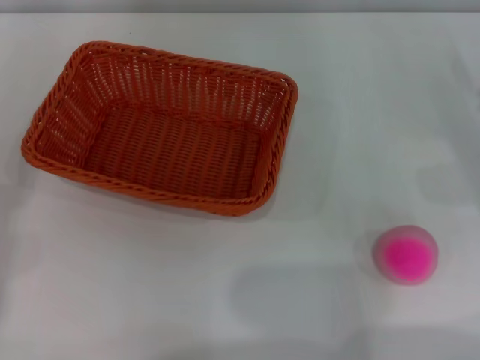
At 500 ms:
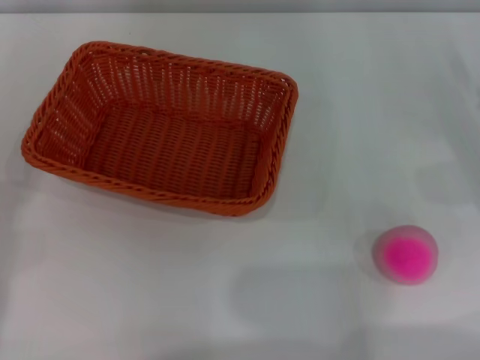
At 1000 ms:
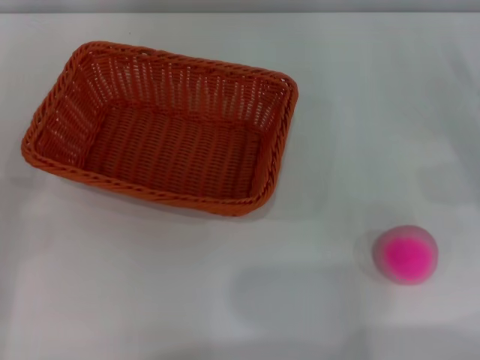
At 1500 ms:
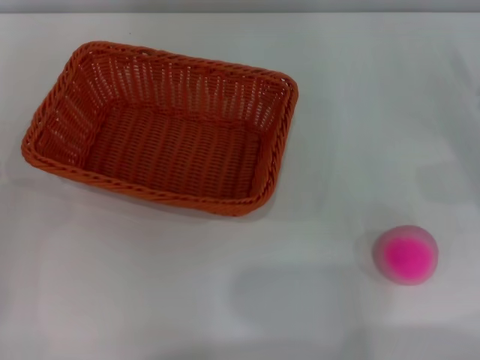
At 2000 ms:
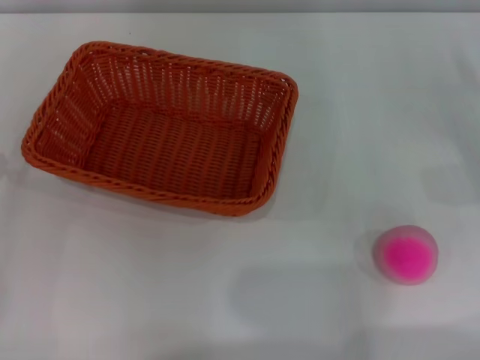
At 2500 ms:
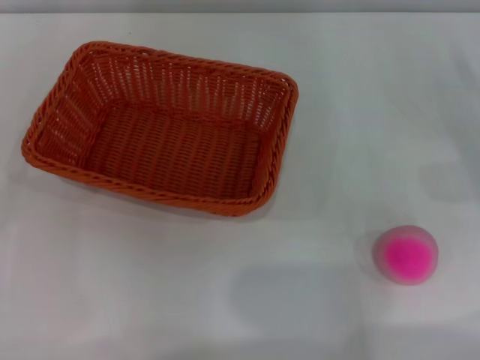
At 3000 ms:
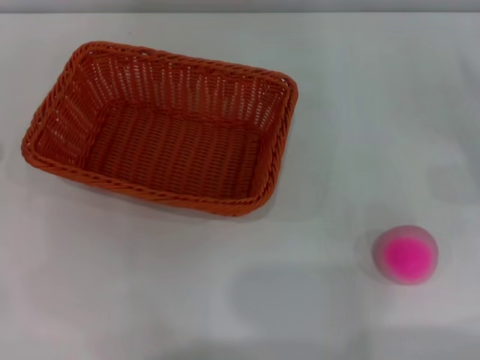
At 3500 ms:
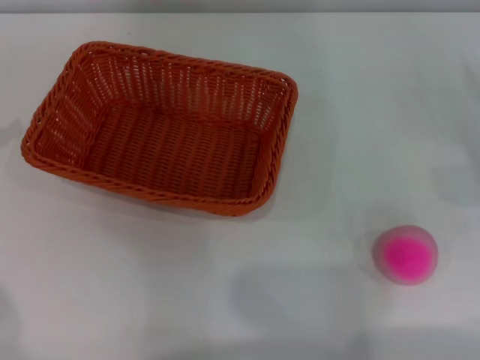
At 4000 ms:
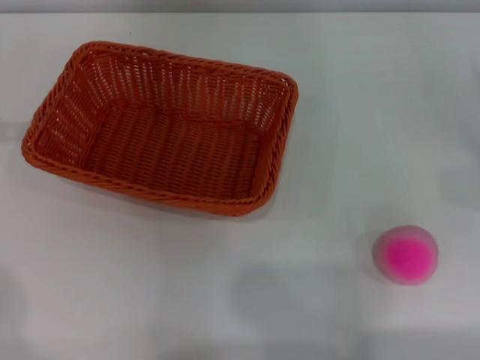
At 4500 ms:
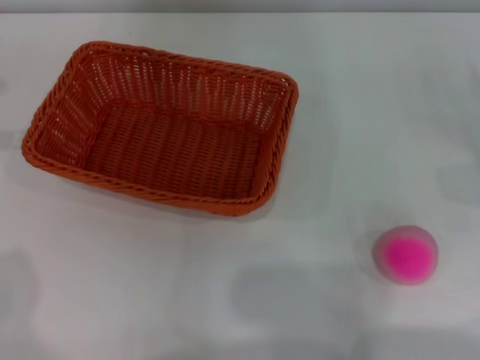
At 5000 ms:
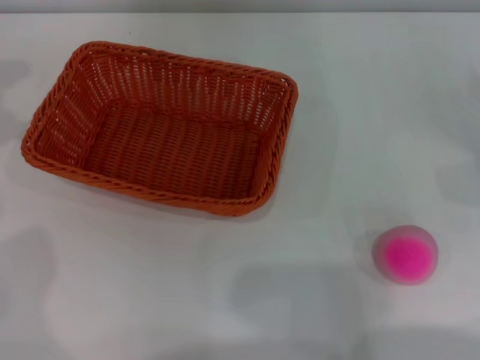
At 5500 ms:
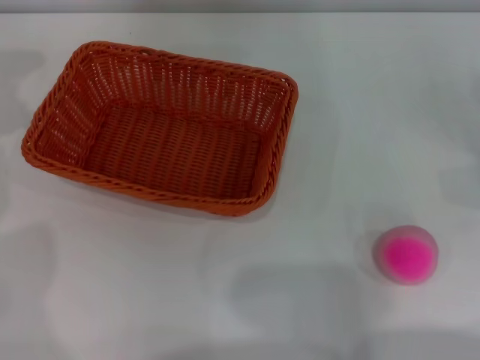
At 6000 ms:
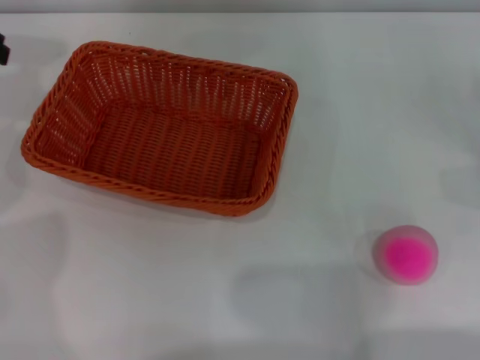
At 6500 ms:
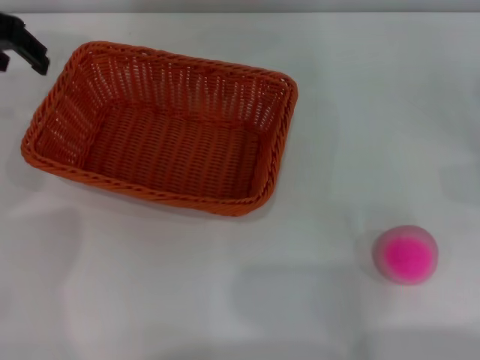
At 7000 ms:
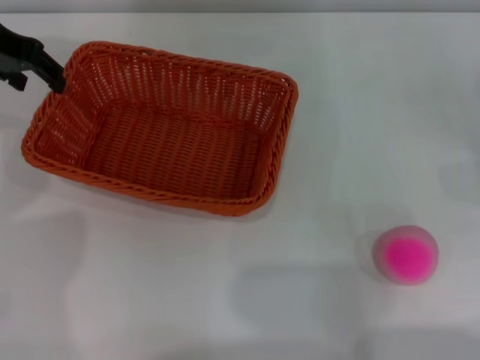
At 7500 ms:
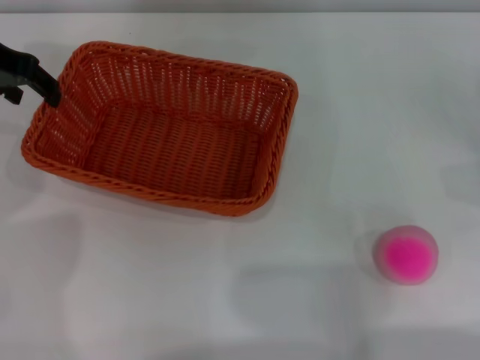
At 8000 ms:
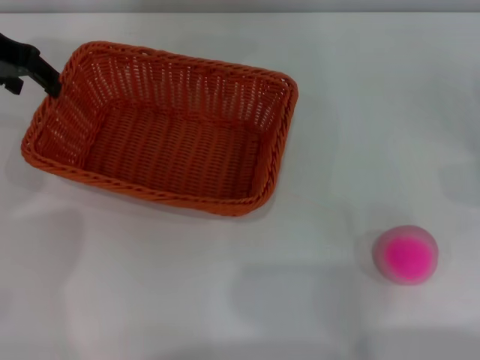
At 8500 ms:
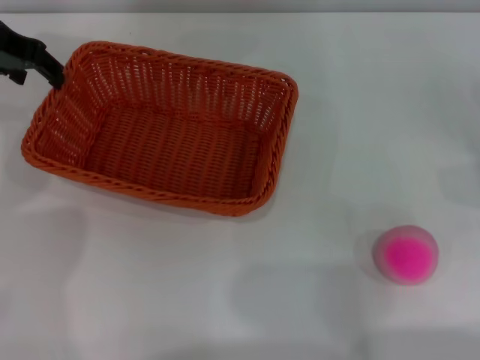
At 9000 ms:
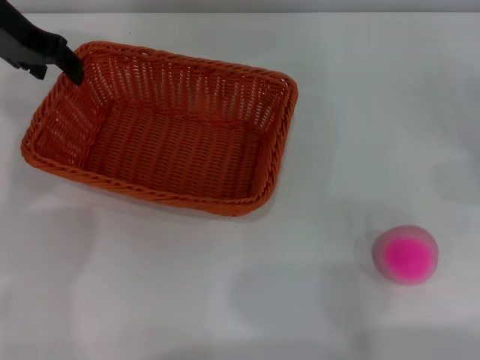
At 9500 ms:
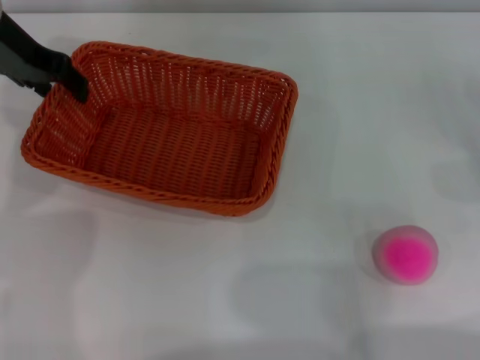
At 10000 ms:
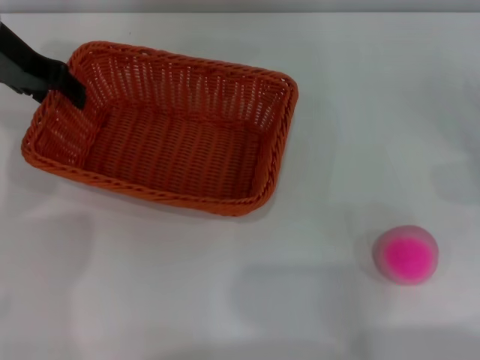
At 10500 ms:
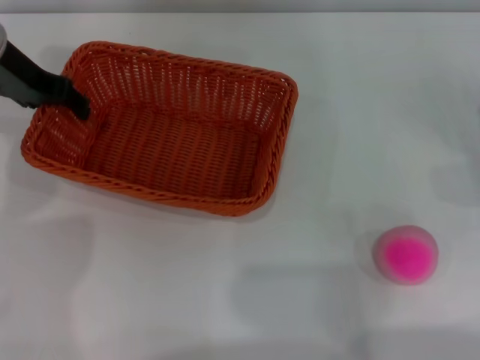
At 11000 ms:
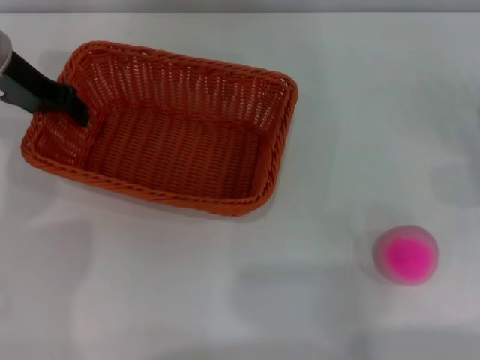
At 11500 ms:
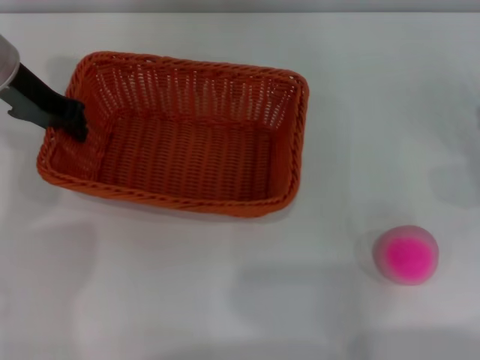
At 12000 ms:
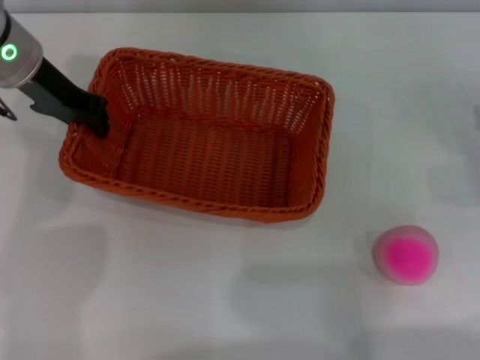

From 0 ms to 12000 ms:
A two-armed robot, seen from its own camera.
From 6000 ms to 8000 ms: The left gripper moves downward, about 5 cm.
From 8000 ms to 10000 ms: The grippers stay close to where they were, moving slightly.
From 10000 ms to 12000 ms: The left gripper closes.

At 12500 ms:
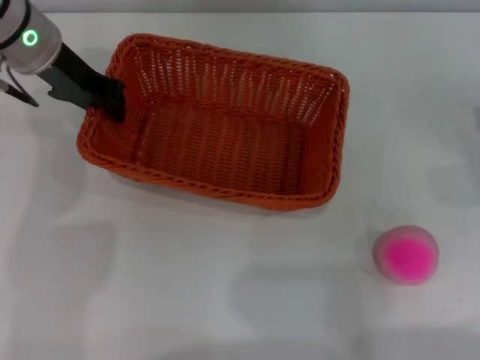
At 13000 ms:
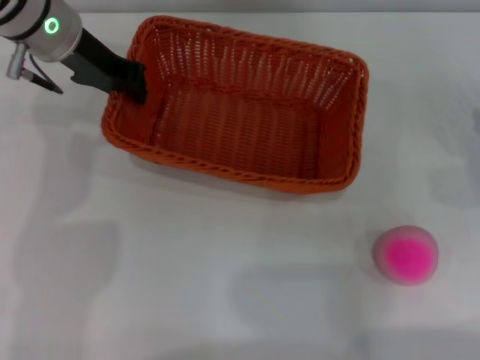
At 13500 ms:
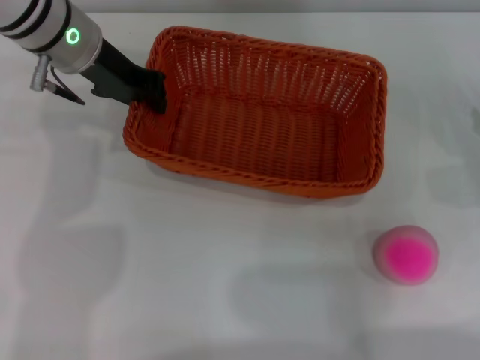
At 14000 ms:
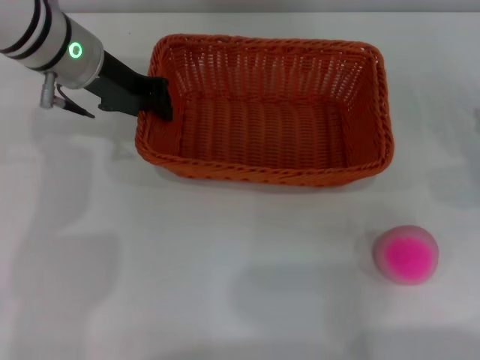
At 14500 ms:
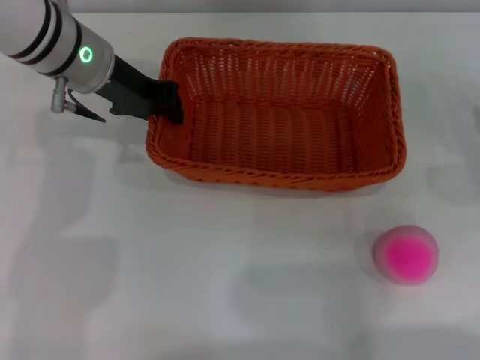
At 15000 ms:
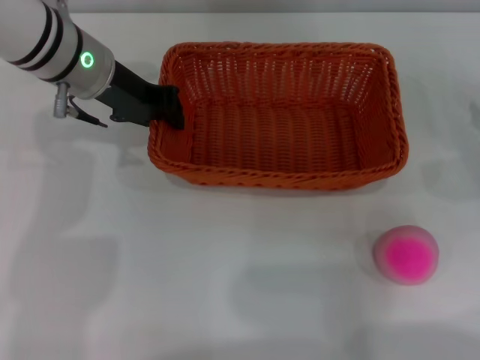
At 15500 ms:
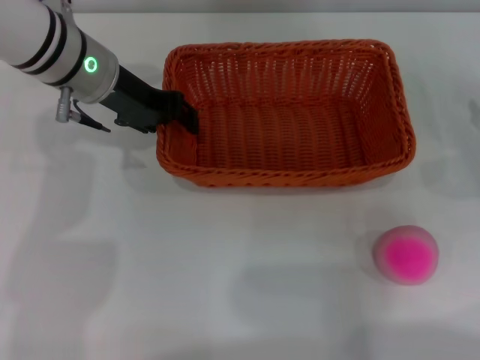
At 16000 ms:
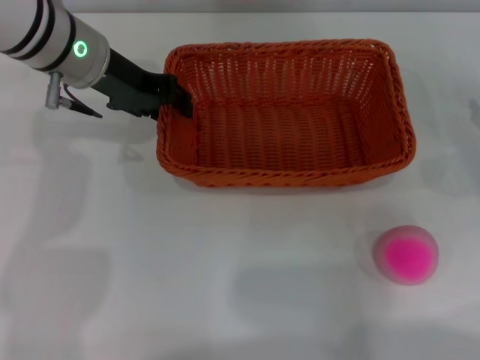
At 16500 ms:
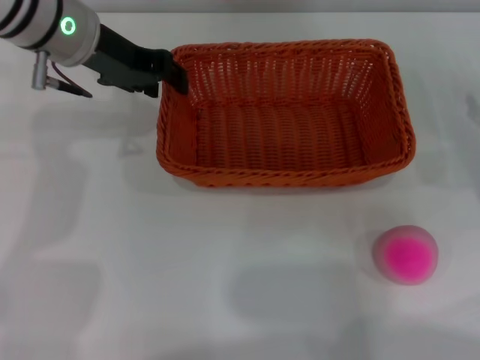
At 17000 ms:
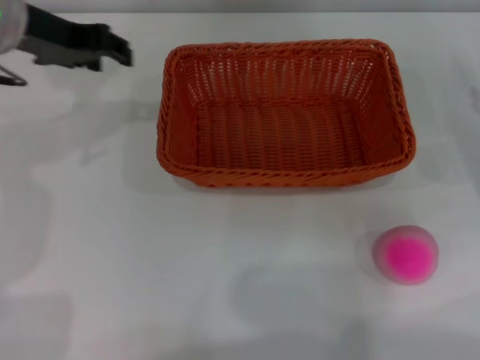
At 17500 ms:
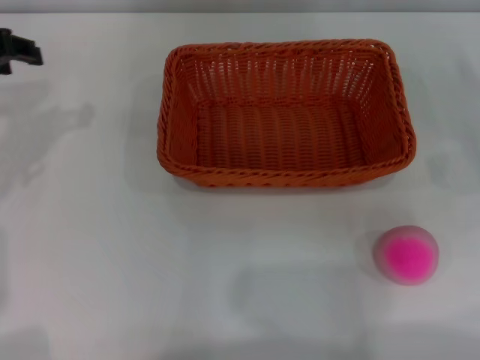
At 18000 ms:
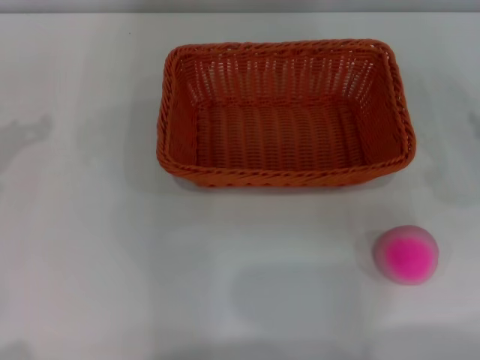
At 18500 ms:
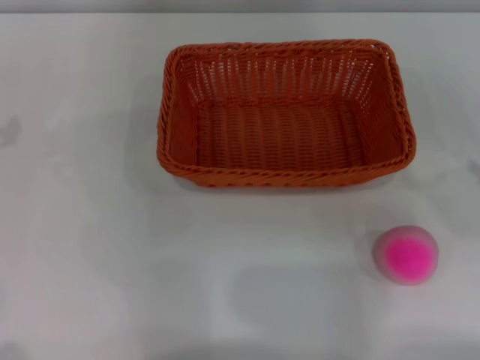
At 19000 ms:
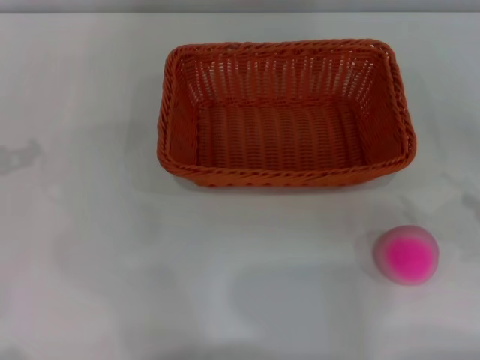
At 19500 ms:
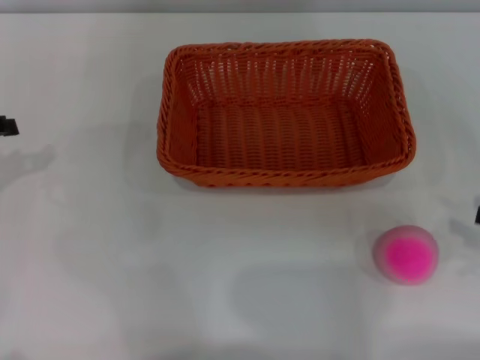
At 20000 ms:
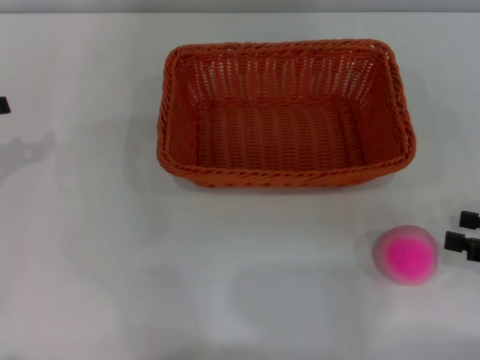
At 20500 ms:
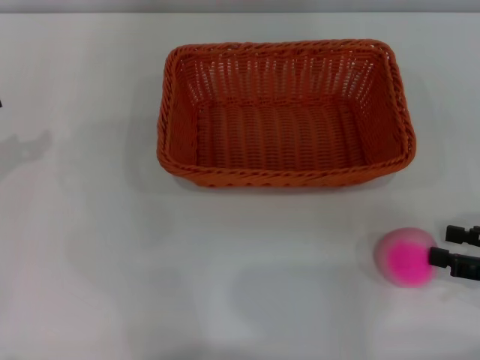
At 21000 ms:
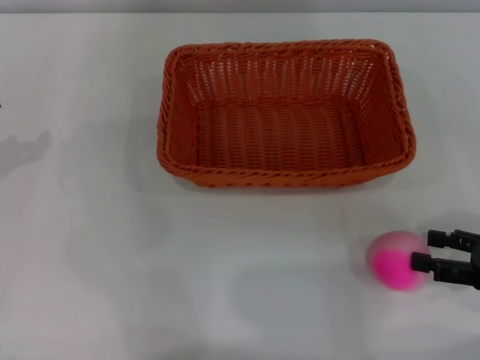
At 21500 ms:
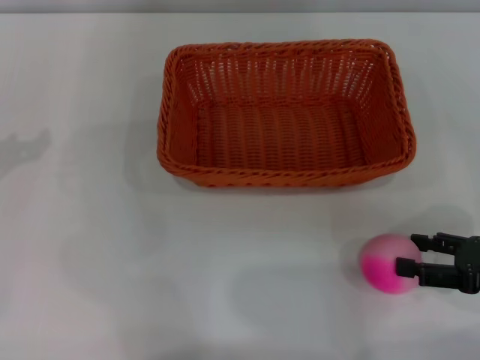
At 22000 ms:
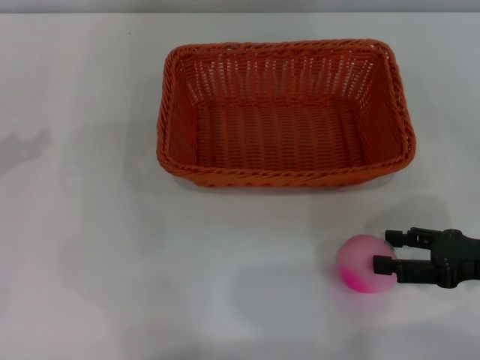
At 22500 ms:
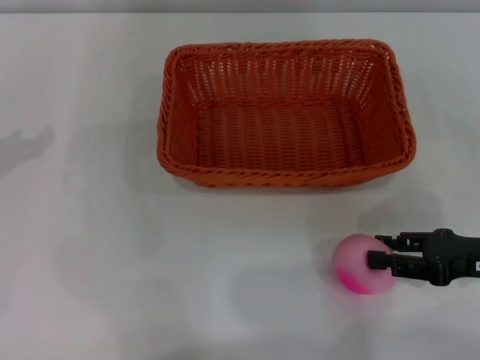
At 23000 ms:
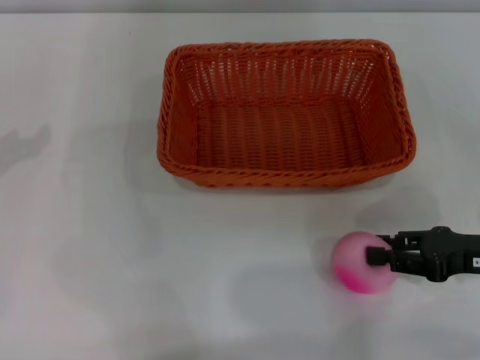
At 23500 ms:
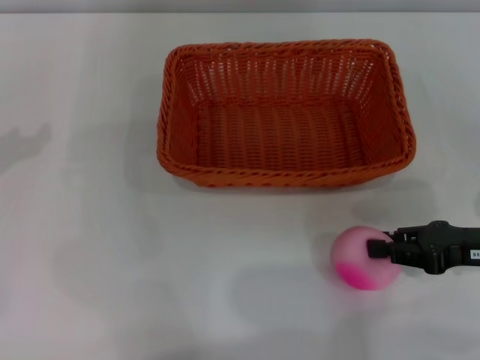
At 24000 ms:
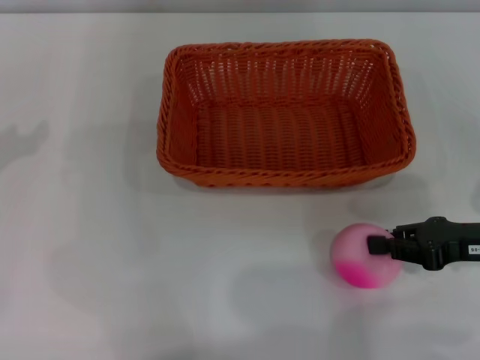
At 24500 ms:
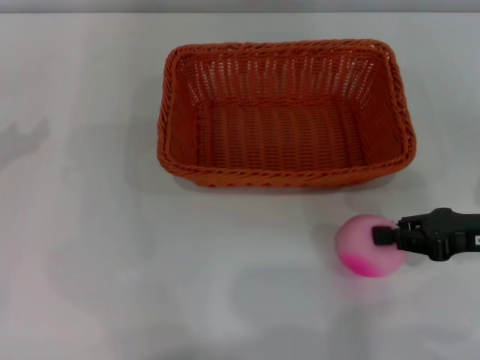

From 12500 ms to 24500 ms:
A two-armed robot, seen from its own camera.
Step, from 13500 ms to 16500 ms: Place the light basket in the center of view with the right gripper.
From 14500 ms to 16500 ms: The left gripper opens its fingers.
From 16500 ms to 18500 ms: The left gripper goes approximately 20 cm to the left and backward.
From 18500 ms to 20500 ms: The right gripper moves to the left, about 5 cm.
From 20500 ms to 22500 ms: The right gripper is displaced to the left by about 5 cm.
From 22500 ms to 24500 ms: The right gripper closes its fingers.

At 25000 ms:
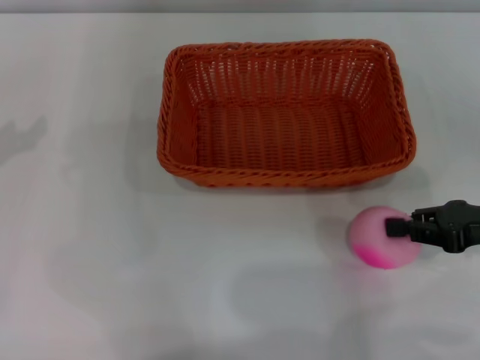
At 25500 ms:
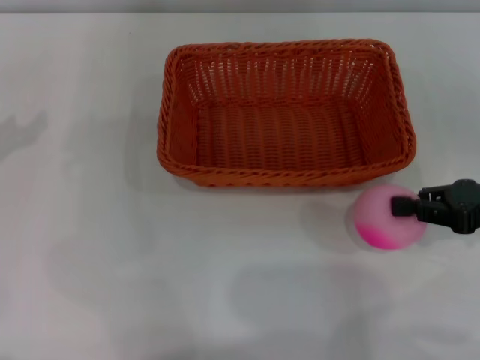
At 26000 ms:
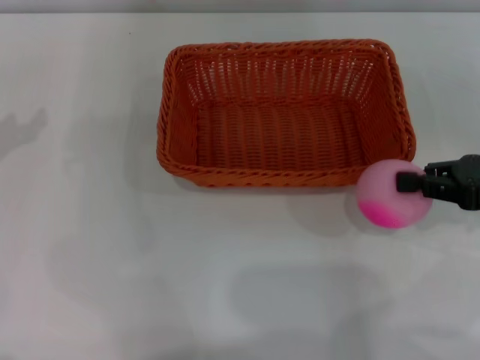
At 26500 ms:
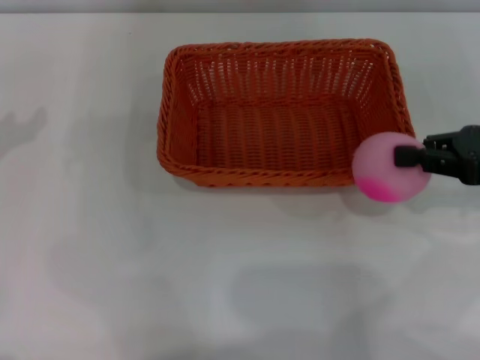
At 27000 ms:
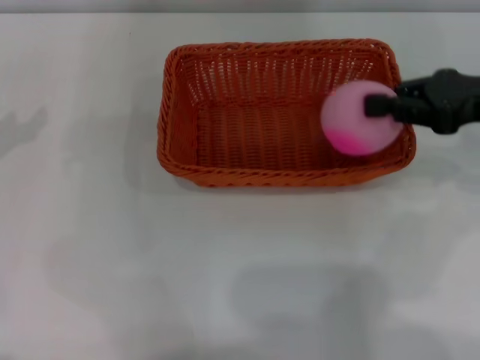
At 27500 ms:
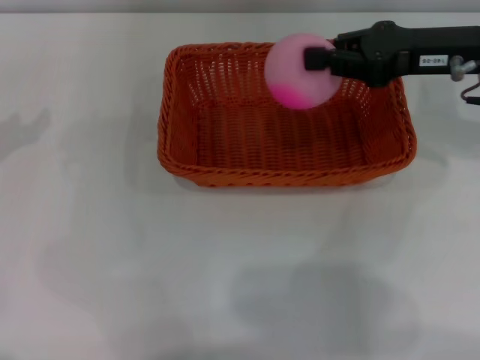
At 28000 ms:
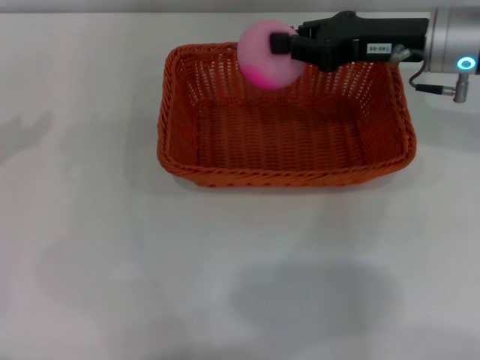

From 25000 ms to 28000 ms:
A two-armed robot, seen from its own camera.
From 25000 ms to 26500 ms: The right gripper travels upward by roughly 5 cm.
From 26500 ms to 28000 ms: The right gripper heads forward and to the left, covering about 15 cm.
